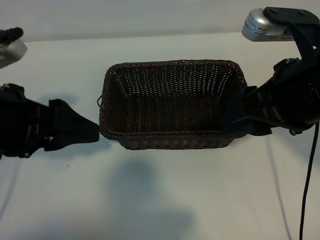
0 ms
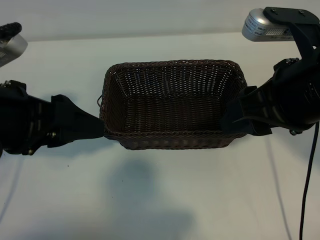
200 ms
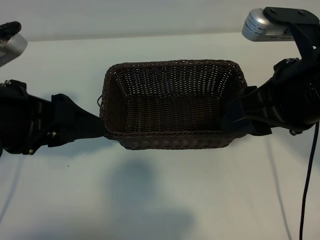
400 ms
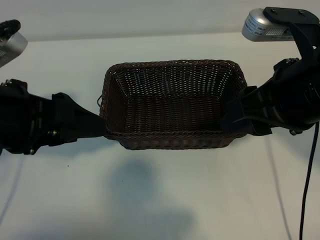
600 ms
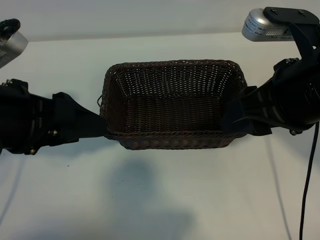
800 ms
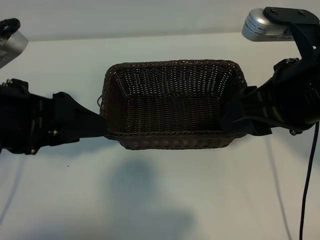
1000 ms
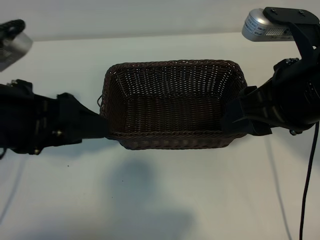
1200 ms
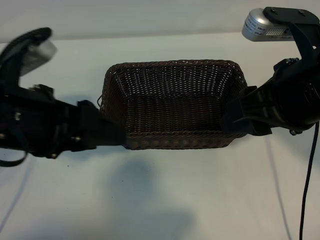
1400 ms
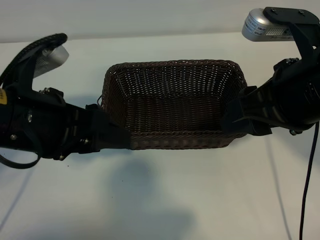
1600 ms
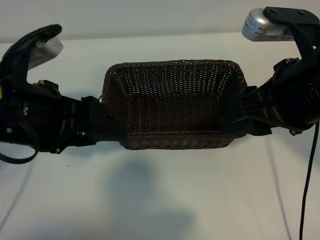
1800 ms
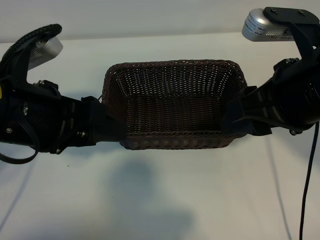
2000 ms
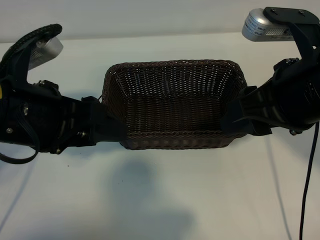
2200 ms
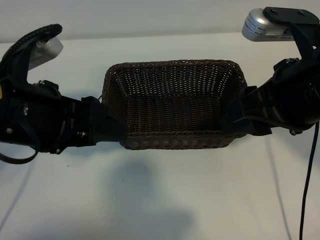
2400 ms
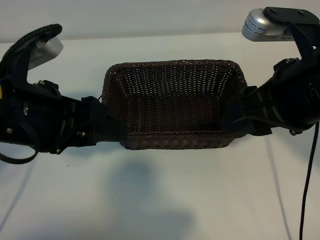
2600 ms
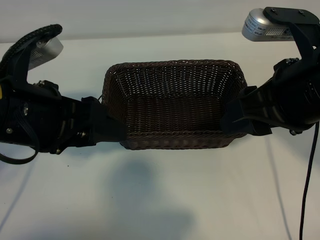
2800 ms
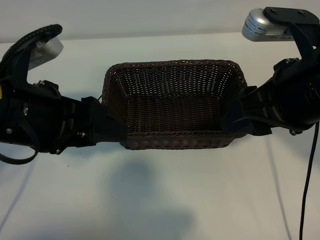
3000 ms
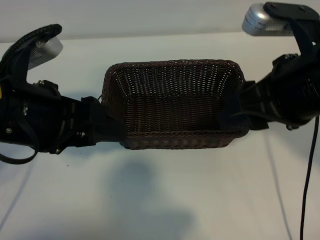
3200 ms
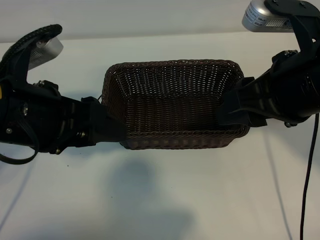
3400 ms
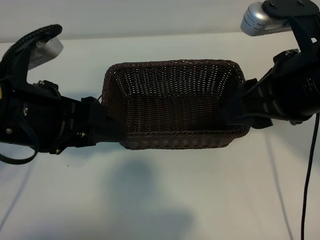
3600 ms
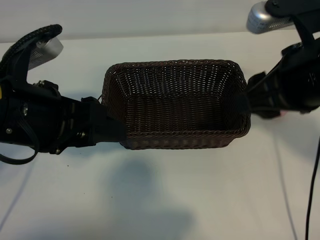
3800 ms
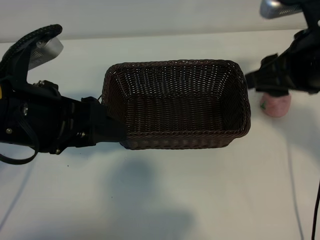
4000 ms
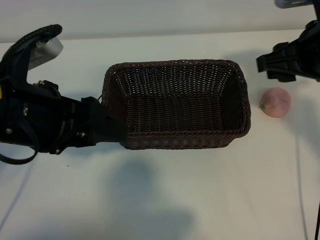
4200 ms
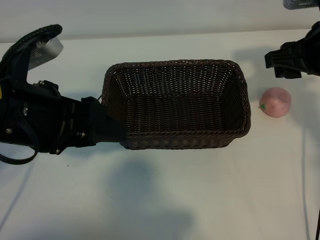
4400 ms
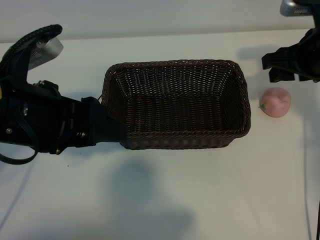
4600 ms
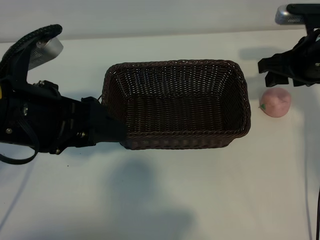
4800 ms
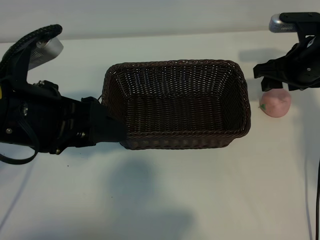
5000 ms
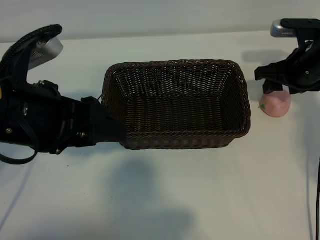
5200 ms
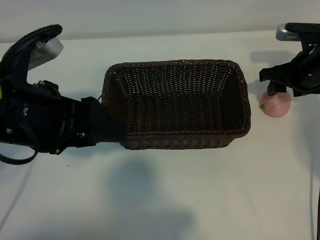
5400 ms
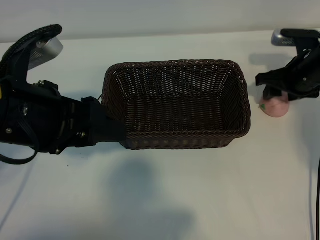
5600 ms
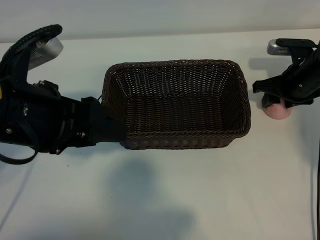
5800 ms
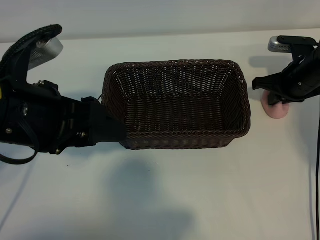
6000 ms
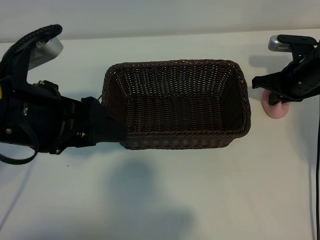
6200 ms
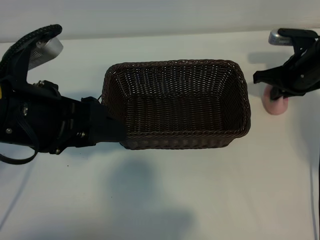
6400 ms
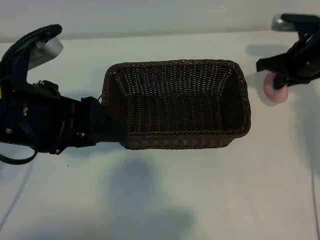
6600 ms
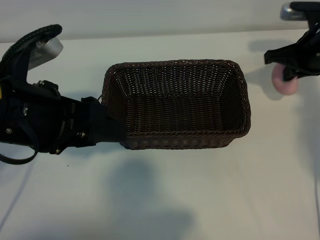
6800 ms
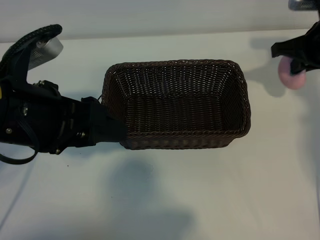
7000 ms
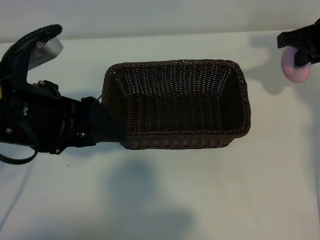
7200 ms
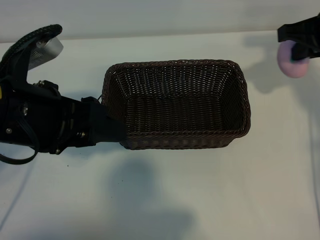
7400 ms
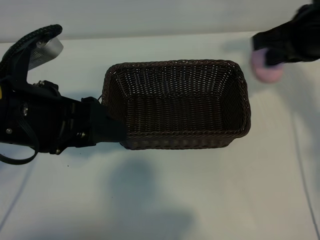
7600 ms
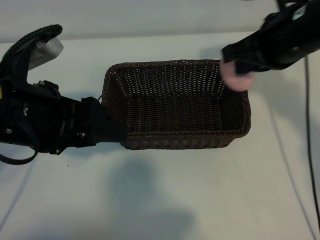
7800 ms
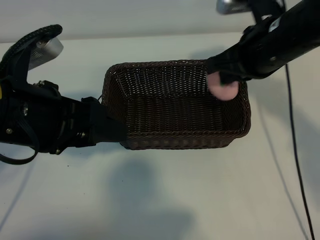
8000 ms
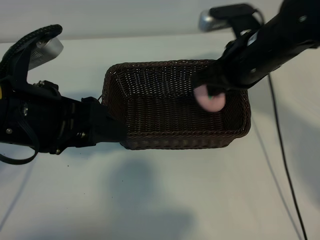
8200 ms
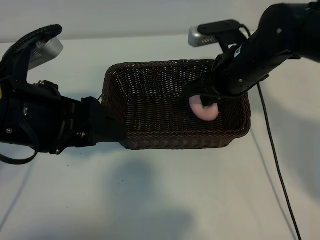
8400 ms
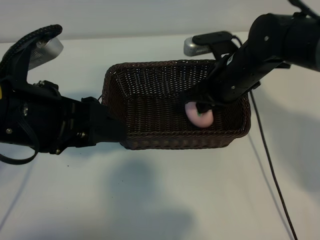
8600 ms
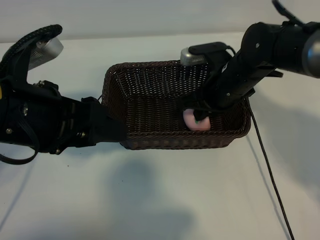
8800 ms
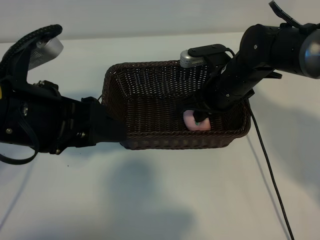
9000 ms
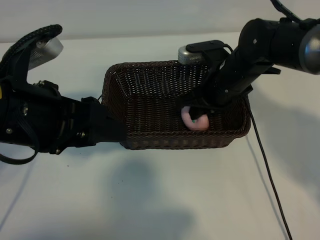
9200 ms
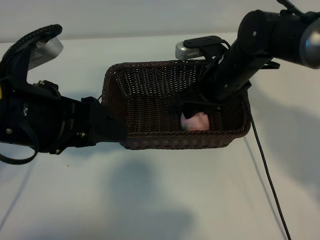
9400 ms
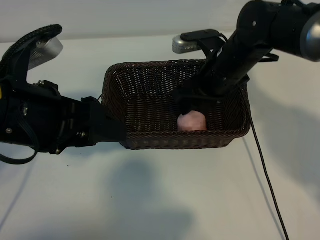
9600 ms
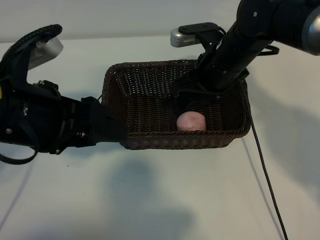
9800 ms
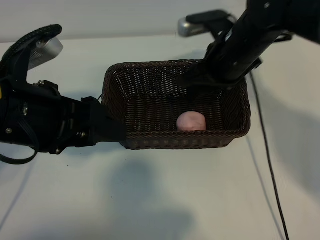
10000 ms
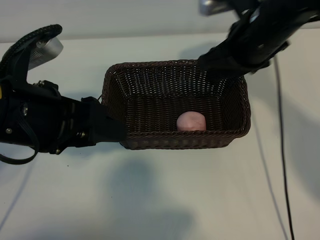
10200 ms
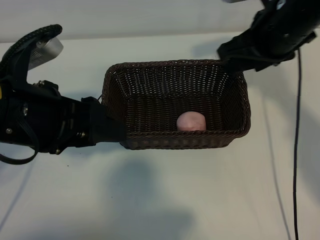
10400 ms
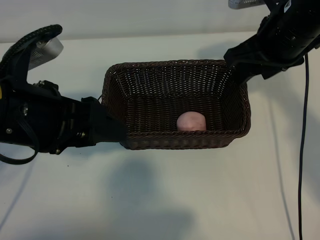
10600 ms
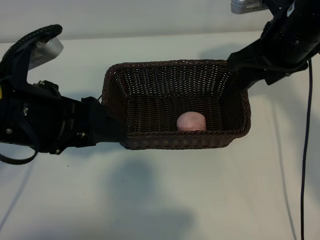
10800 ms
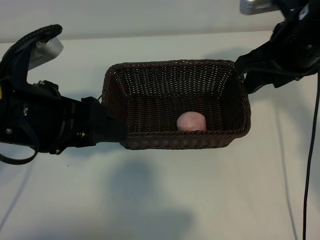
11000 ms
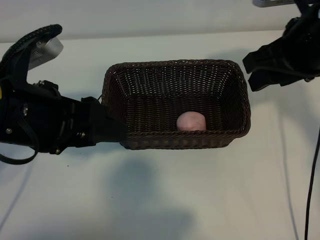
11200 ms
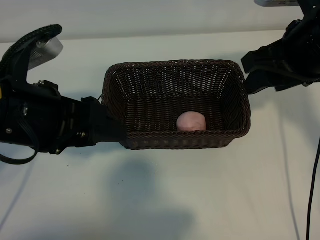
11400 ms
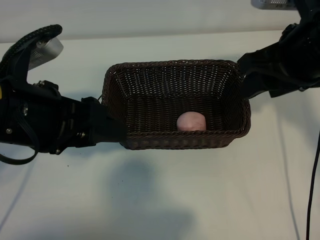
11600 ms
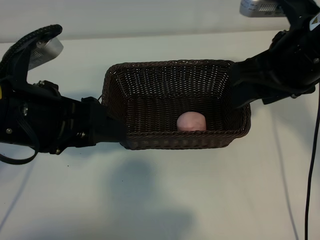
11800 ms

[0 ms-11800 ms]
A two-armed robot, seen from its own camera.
Task of the whole recording: pick up the peach and put it into the basket.
Step, 0 ms to 6000 ms: Grasp the peach with right gripper.
Step, 6400 ms to 9400 ms: Place the peach in the basket with right gripper.
